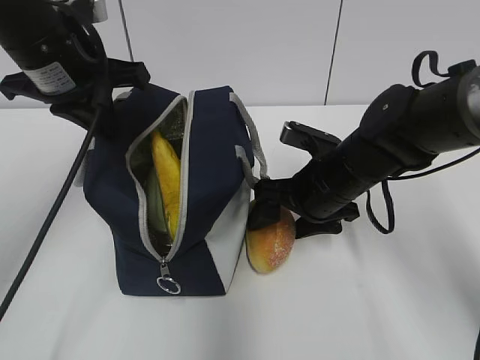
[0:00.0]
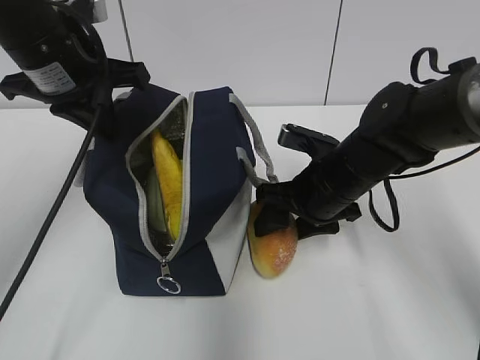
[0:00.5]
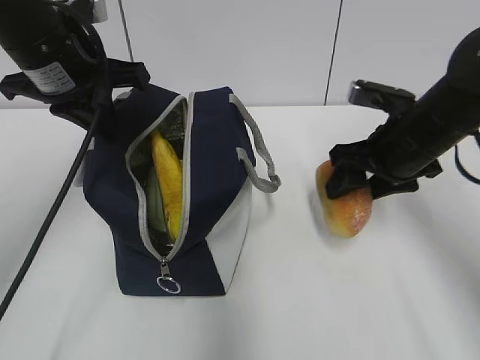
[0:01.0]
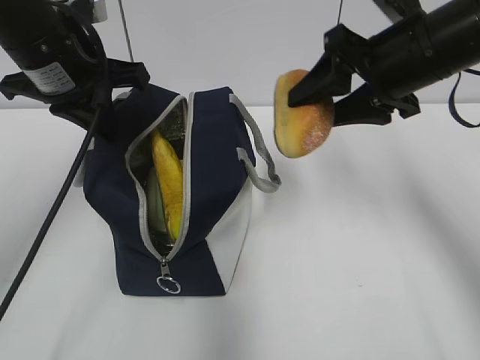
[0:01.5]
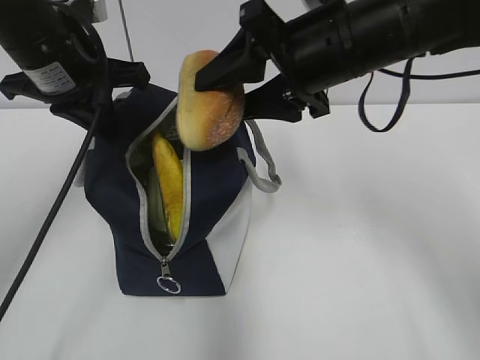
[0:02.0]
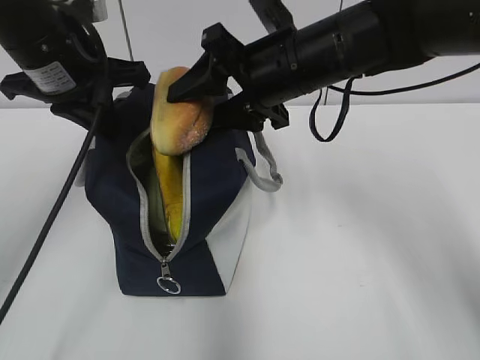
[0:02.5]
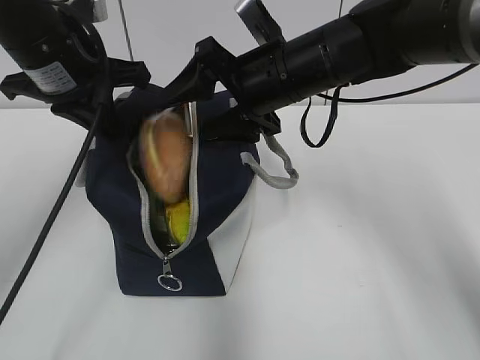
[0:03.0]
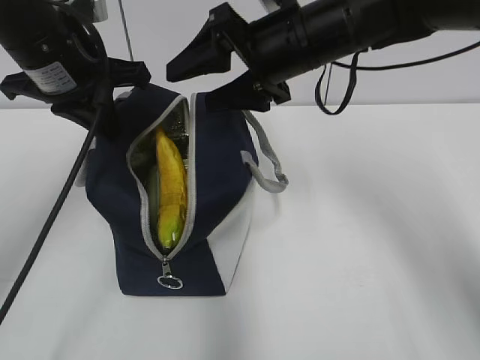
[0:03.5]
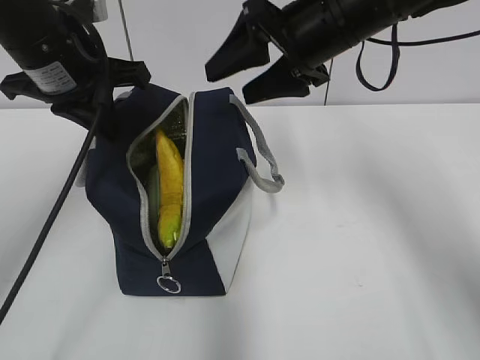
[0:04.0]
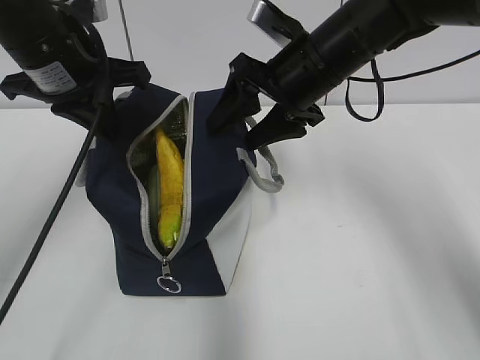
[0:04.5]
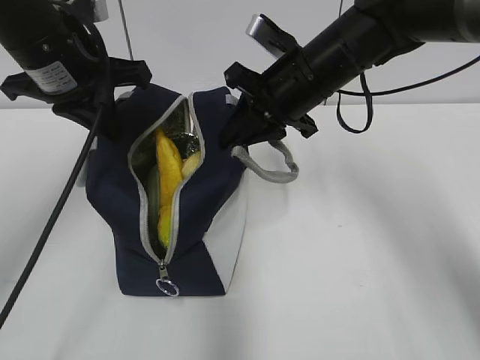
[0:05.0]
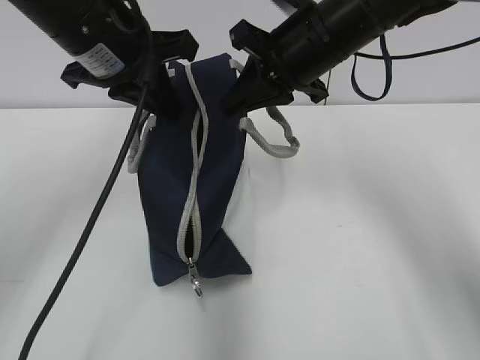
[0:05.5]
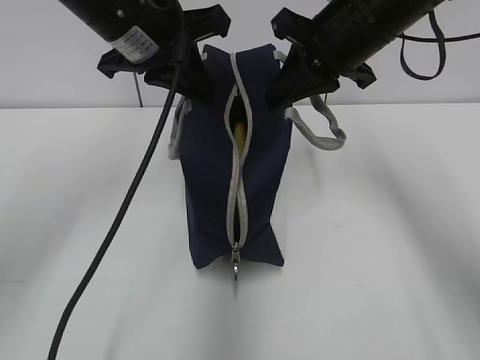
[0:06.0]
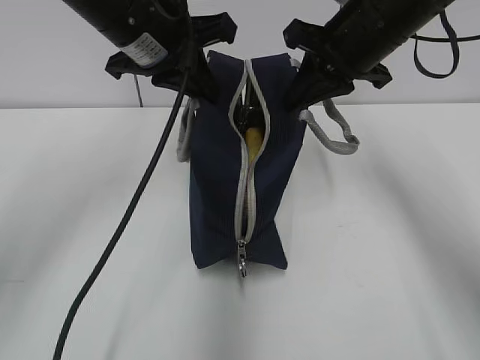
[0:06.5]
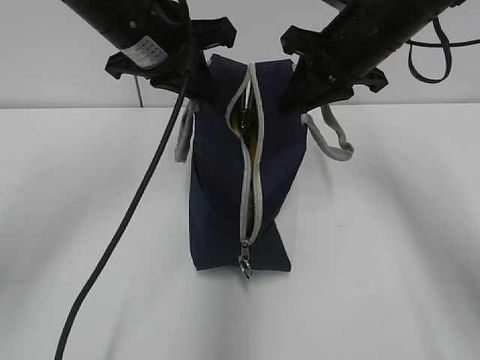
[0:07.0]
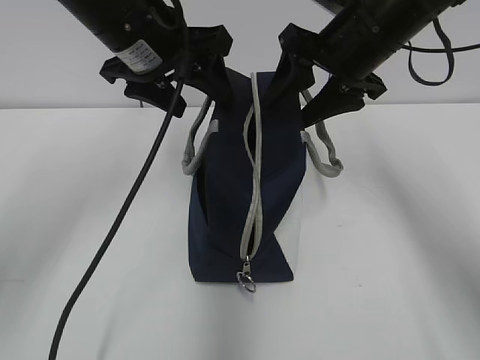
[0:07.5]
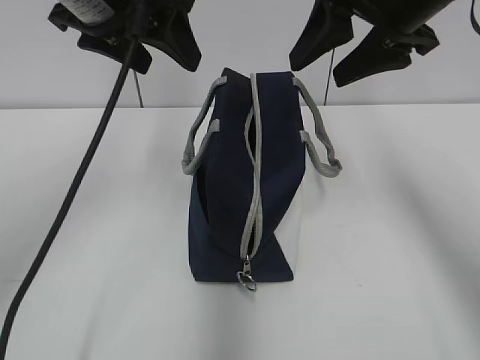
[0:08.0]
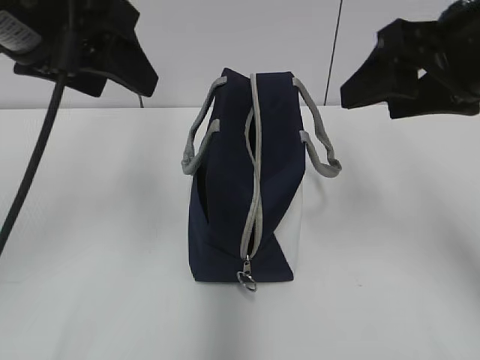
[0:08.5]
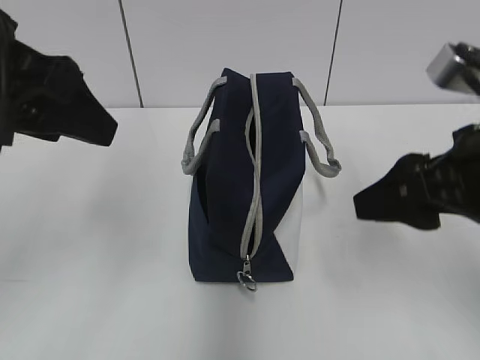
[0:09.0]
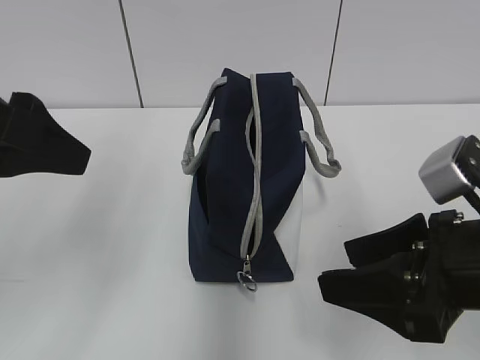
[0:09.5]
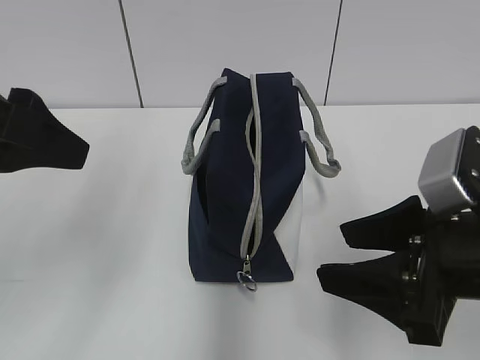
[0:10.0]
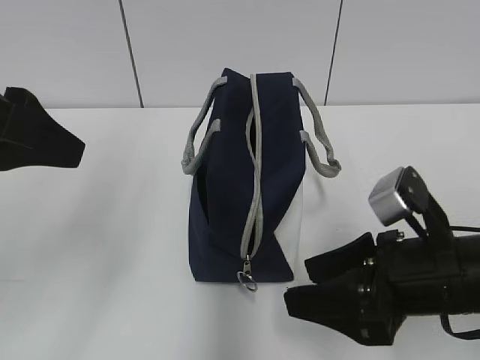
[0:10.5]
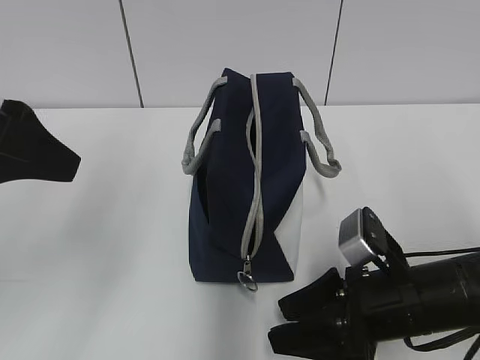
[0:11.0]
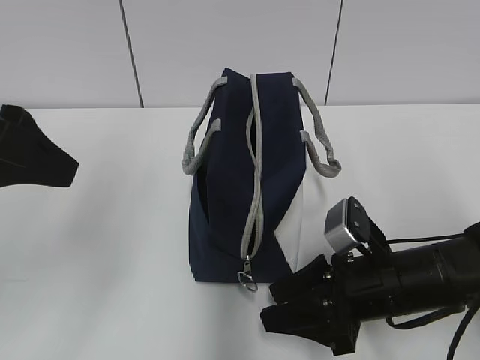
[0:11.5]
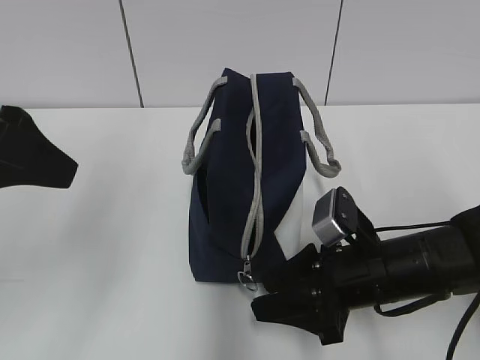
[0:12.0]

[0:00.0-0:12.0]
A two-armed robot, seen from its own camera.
Step, 0:00.5 to 0:03.5: Place it into the bag with your right hand.
Step, 0:04.0 to 0:04.5: Grab the lunch bag with your right hand.
Step, 0:05.0 to 0:05.5: Move the lunch bag to the left.
Step, 0:06.0 to 0:07.0: Move the lunch bag to the right.
0:00.0 to 0:02.0: The right gripper travels upward by roughly 15 cm.
0:02.0 to 0:04.0: The right gripper travels forward by about 5 cm.
0:04.0 to 0:06.0: The left gripper moves to the right, approximately 5 cm, while the right gripper closes.
0:06.0 to 0:08.0: The right gripper ends up some 5 cm from where it was, and opens, while the left gripper changes place by approximately 5 cm, and opens.
0:08.0 to 0:10.0: The right gripper moves backward and downward, roughly 20 cm. The left gripper moves backward and to the left, about 15 cm.
0:10.0 to 0:12.0: The right gripper travels downward and forward by approximately 15 cm.

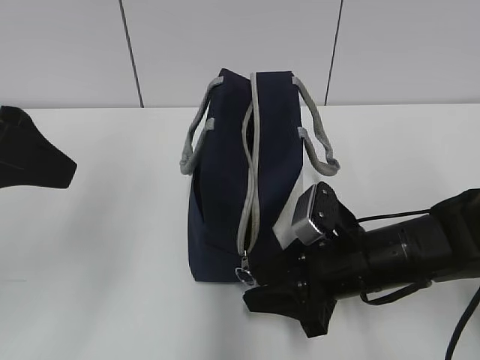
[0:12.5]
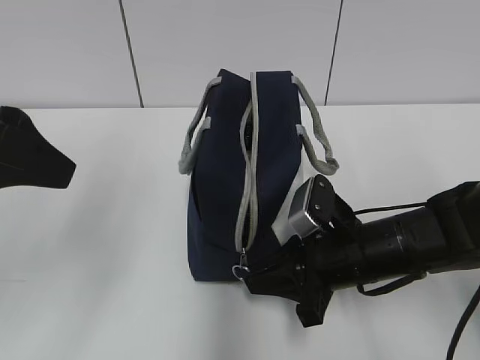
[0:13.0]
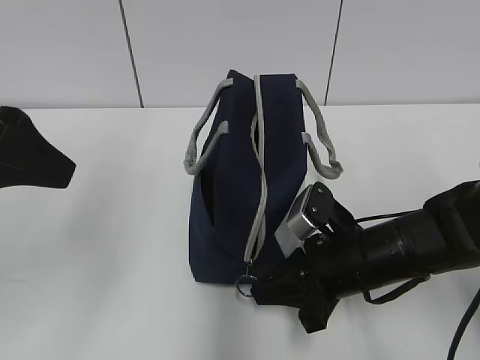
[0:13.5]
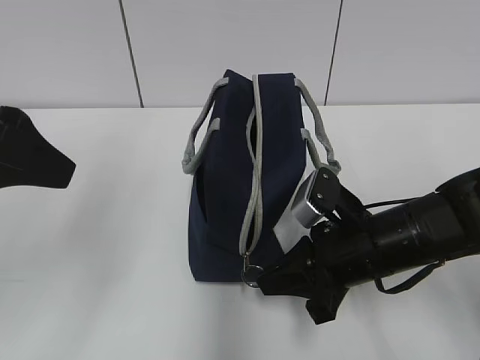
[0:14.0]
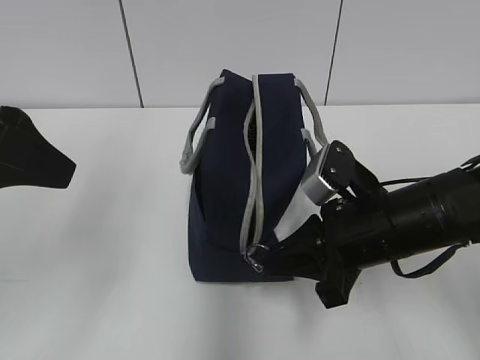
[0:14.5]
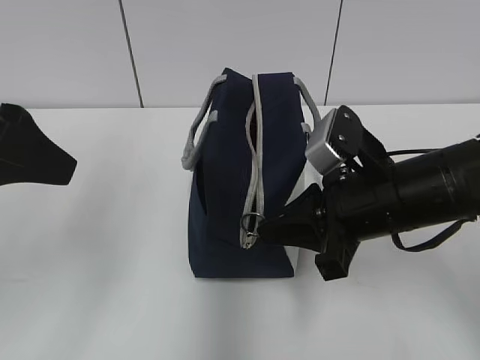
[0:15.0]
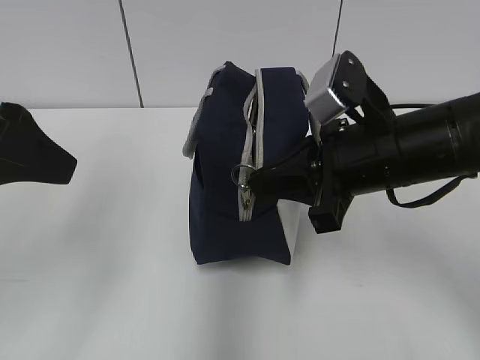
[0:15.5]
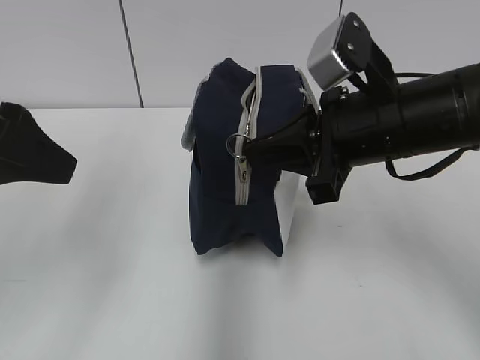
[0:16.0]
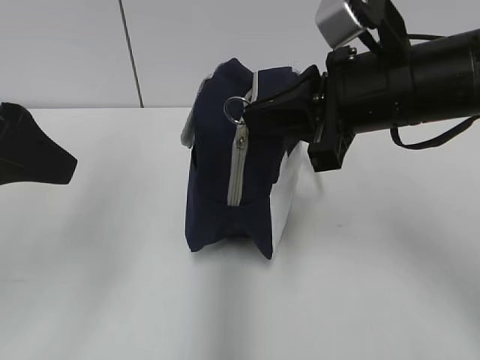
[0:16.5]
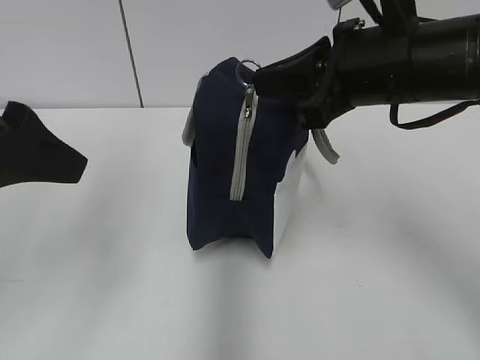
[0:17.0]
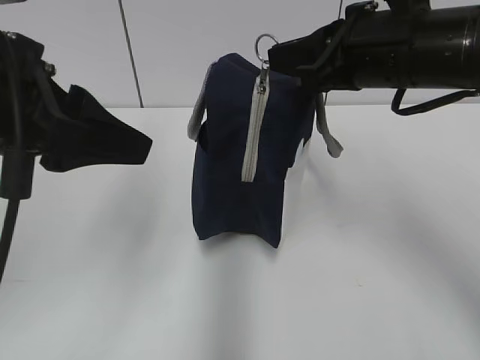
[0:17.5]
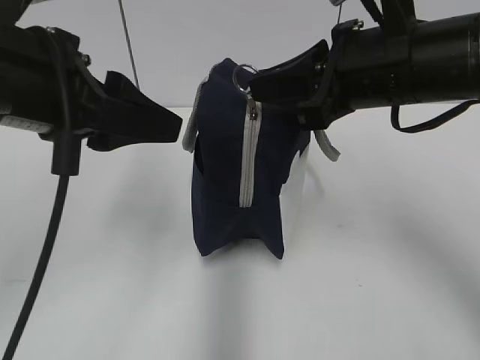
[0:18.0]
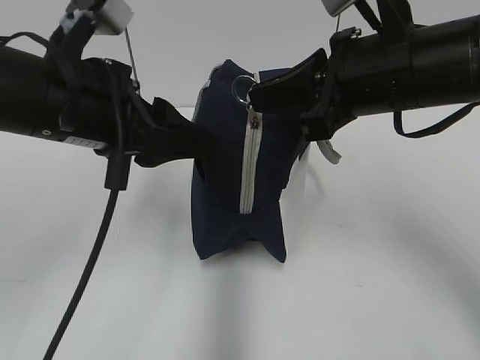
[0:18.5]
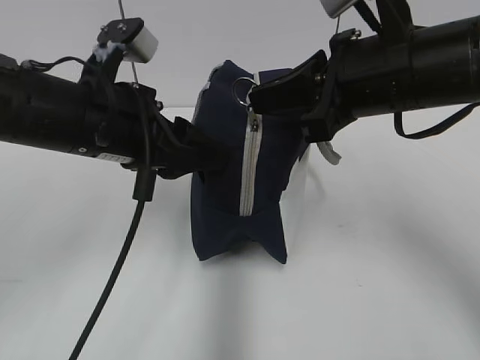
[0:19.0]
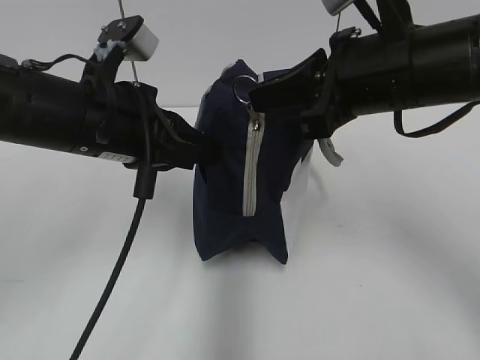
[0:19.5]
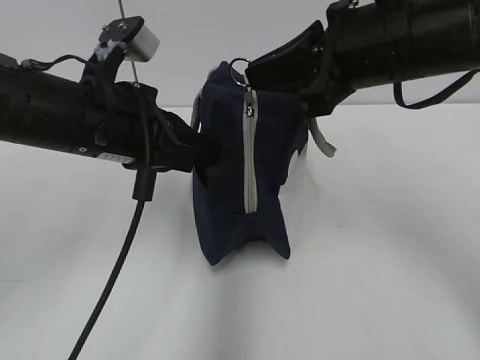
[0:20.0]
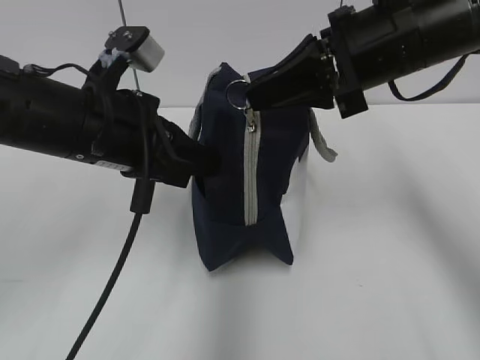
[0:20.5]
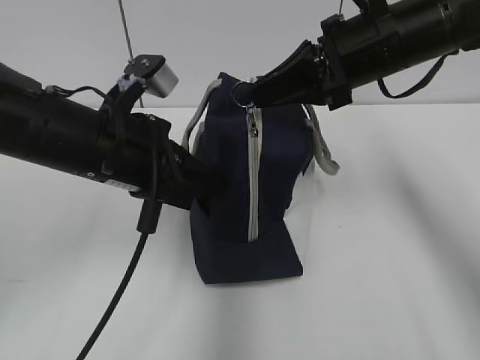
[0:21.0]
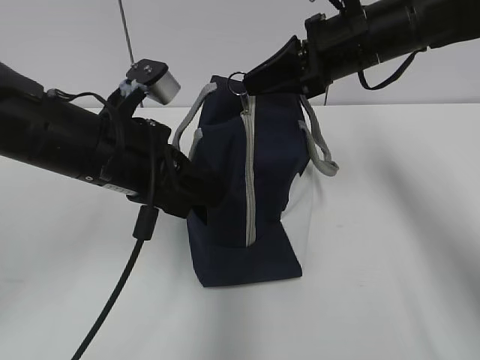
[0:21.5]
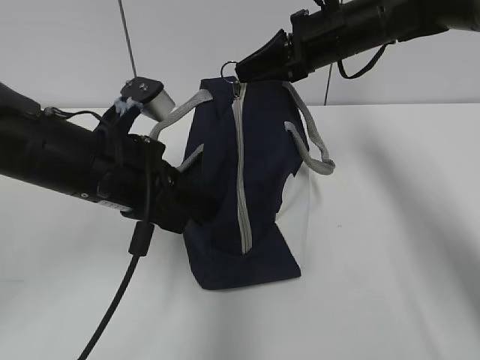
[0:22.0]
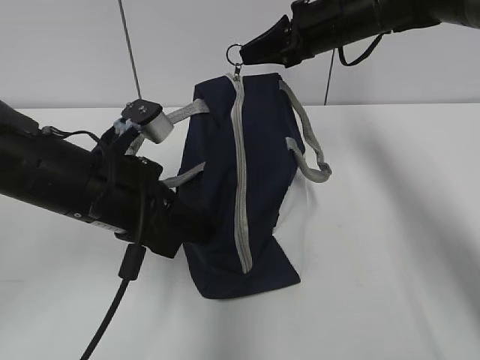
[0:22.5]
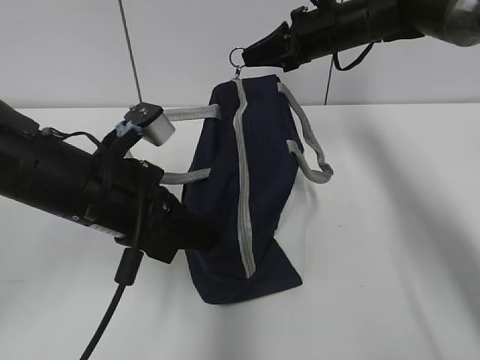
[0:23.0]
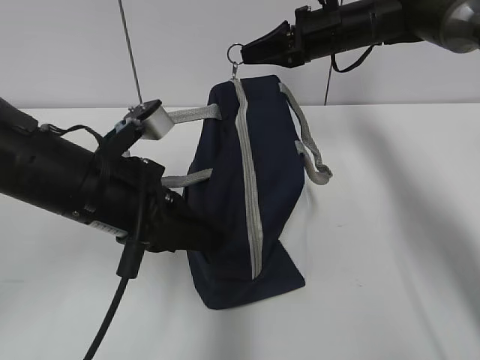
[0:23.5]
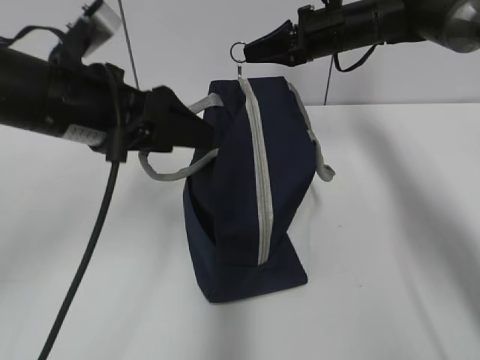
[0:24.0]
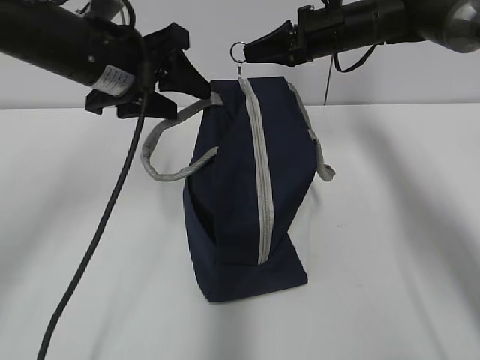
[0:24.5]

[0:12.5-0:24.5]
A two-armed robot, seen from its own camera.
Step, 0:12.5 to 0:20.0: Grab the lunch bag with your left hand.
0:12.5 to 0:14.5: The right gripper goes some 5 cm upward, and closes up.
0:14.5 to 0:16.5: The right gripper is displaced upward by some 10 cm.
0:16.5 to 0:18.5: The left gripper moves to the right and forward, approximately 10 cm.
0:18.5 to 0:20.5: The left gripper closes its fingers.
0:20.5 to 0:22.5: The right gripper travels forward by roughly 15 cm; the left gripper goes some 5 cm downward.
0:22.5 to 0:24.5: The left gripper is displaced forward and upward by about 15 cm, and opens.

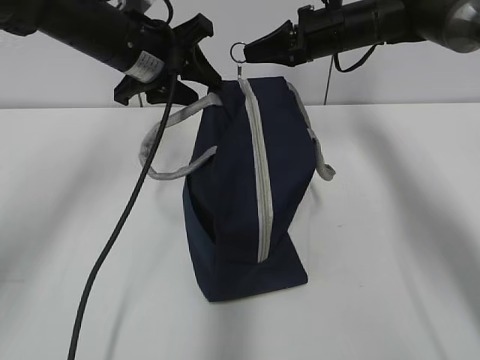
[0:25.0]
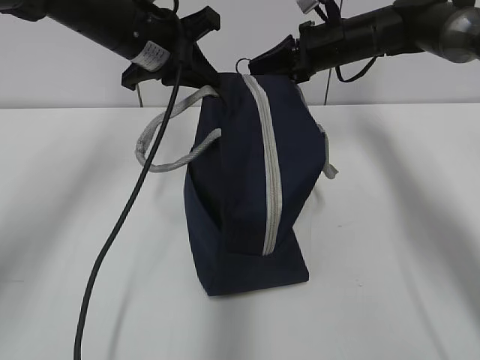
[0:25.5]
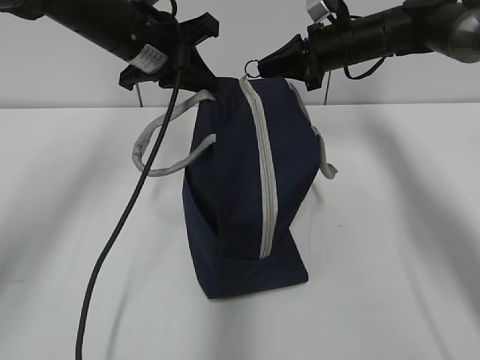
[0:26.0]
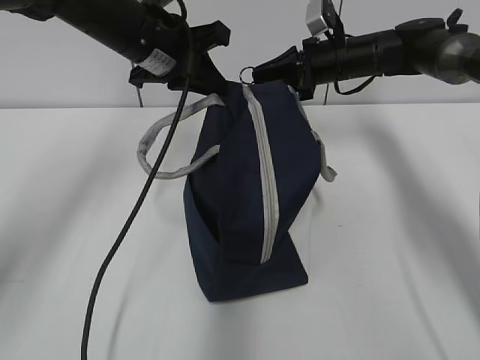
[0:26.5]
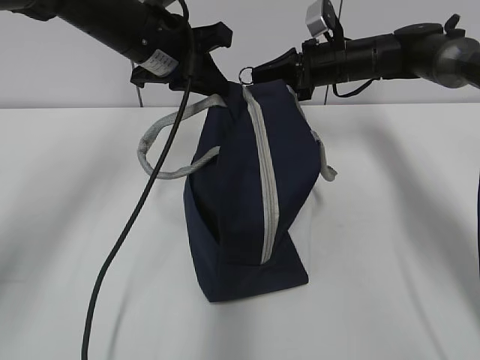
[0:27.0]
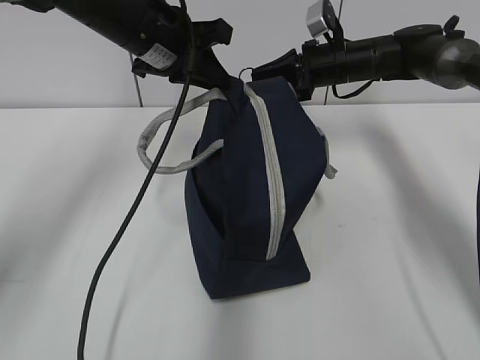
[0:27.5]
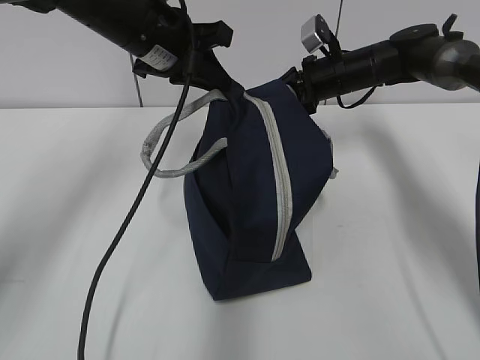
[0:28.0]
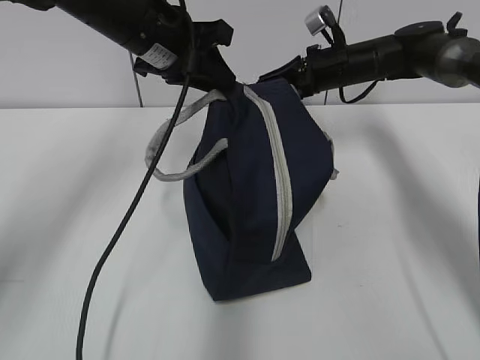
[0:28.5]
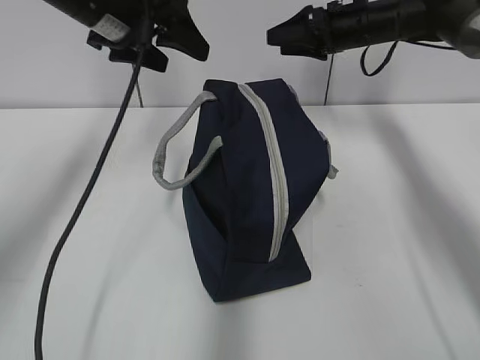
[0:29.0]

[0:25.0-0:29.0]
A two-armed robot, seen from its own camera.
Step, 0:25.0 to 0:28.0: Pull the zipper with your right hand.
0:25.0 to 0:27.0: The left gripper closes its fingers, while the right gripper travels downward by about 5 cm.
0:27.0 to 0:29.0: The right gripper changes place by some 5 cm, and opens up. Meanwhile the left gripper moves some 5 cm, and opens.
